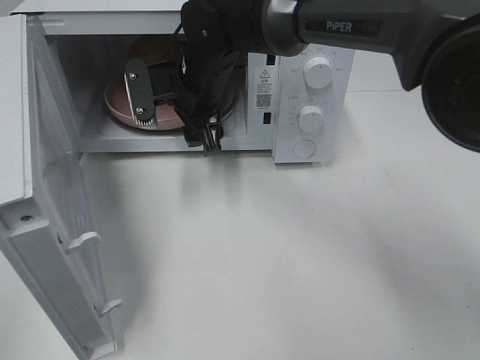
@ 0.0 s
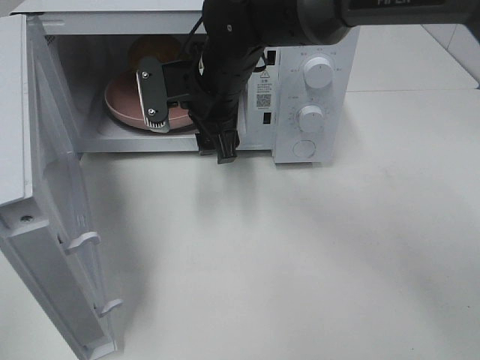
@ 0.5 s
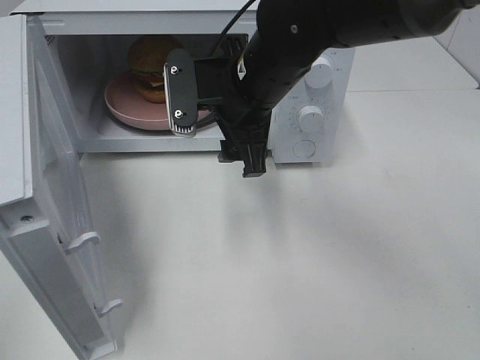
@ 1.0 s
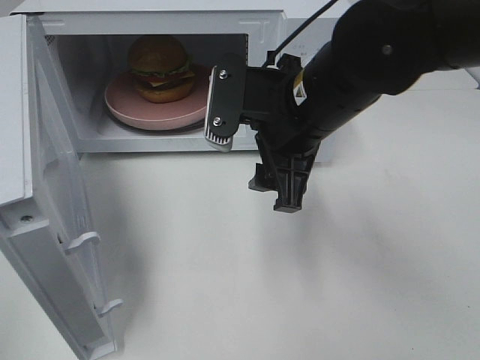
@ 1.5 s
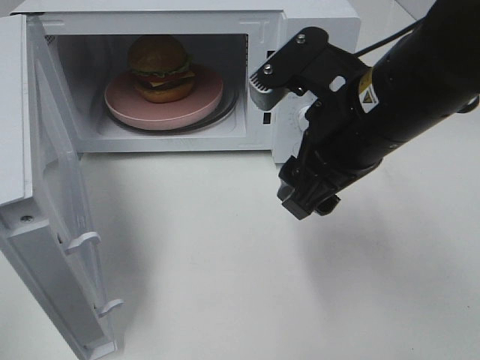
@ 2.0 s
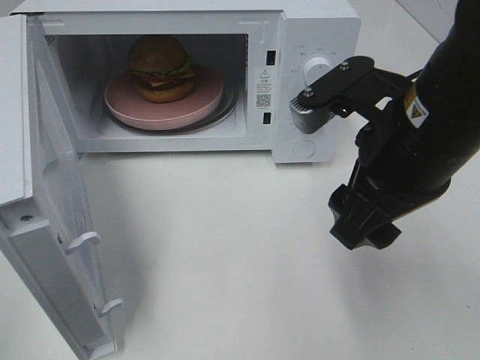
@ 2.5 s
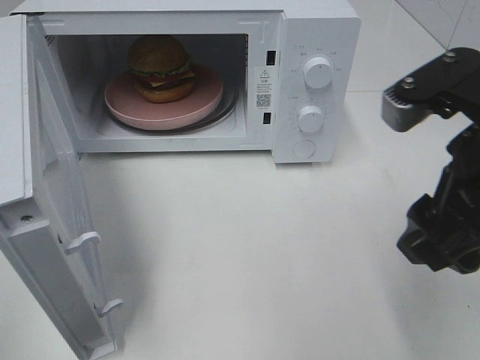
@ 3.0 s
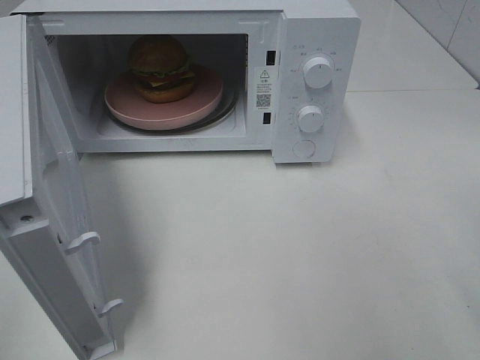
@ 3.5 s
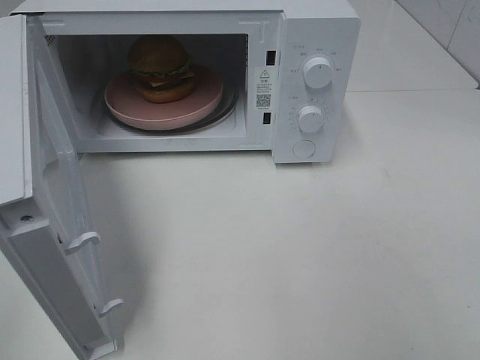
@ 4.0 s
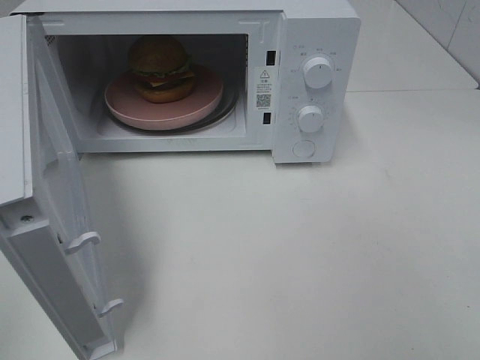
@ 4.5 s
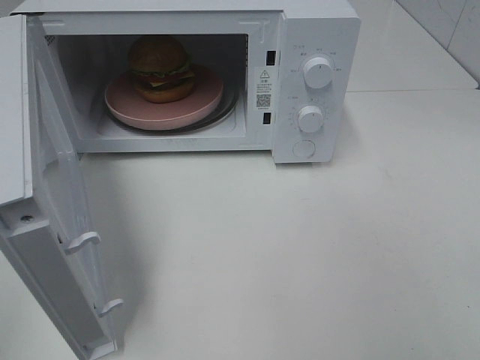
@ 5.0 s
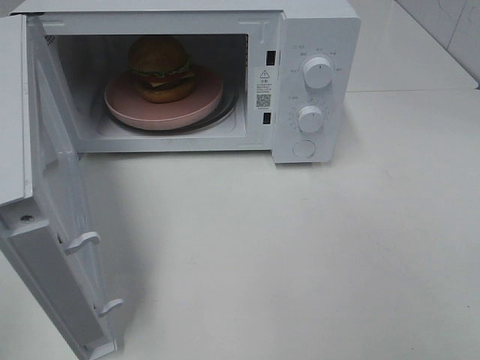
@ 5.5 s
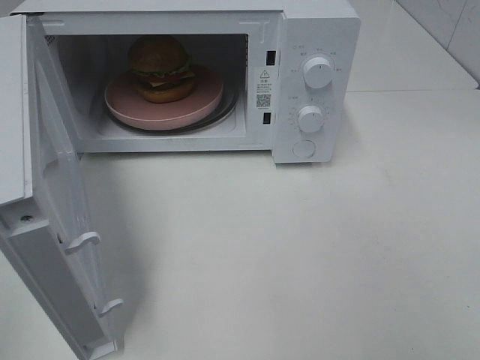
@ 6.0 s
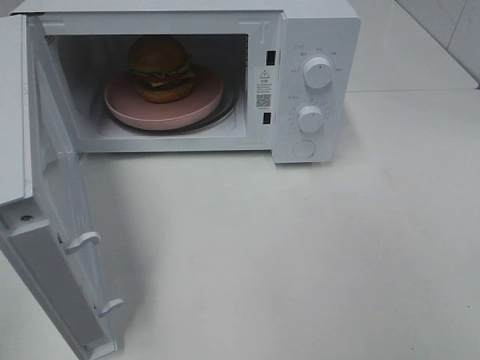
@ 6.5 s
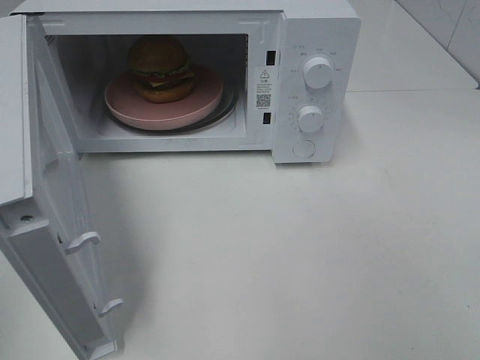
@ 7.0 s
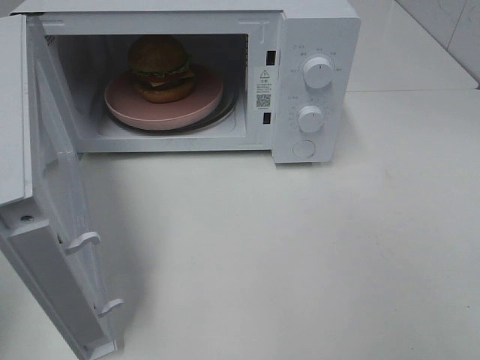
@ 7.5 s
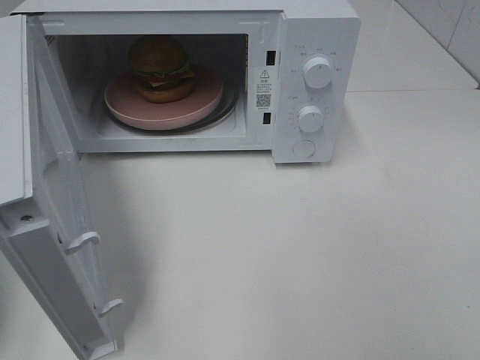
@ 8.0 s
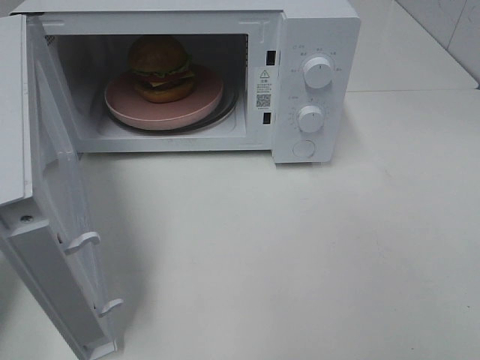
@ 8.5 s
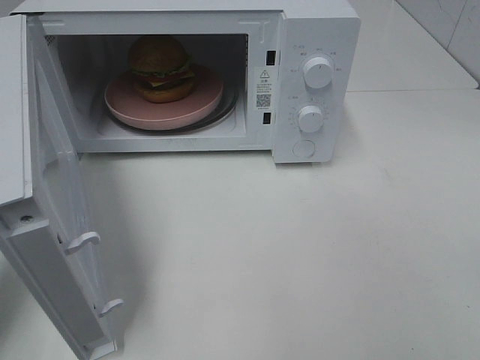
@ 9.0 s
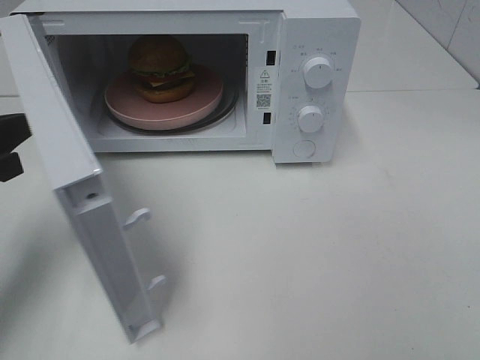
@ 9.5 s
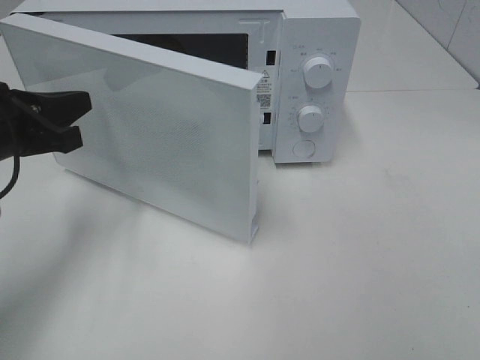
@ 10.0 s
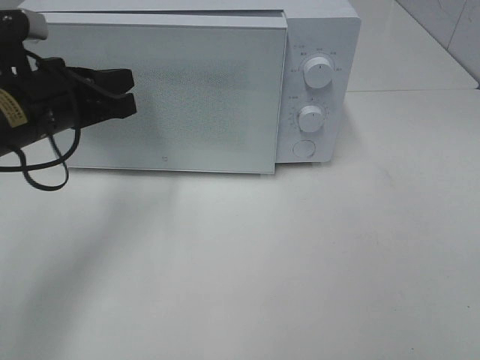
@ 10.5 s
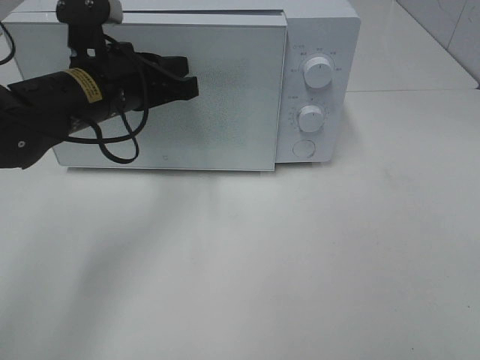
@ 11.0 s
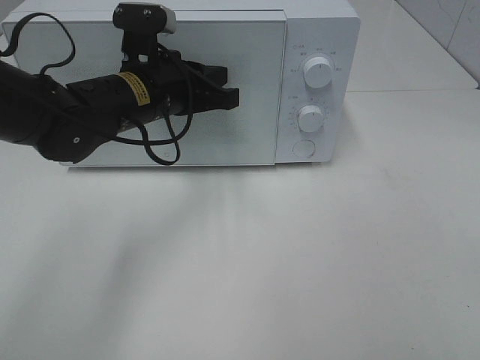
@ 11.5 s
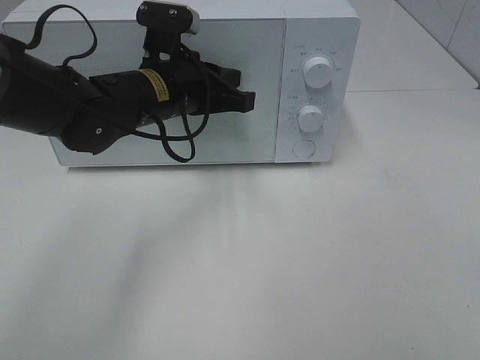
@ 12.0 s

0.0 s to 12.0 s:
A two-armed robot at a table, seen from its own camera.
Task of the whole recording: Heat the burger.
0.0 to 2.0 s: The right gripper shifts about 25 cm backward and to the right.
2.0 to 4.0 s: The right gripper travels backward and to the right by roughly 25 cm.
8.0 to 10.0 s: The left gripper heads forward and to the right, covering approximately 15 cm.
10.0 to 12.0 s: The left gripper is displaced to the right and forward by approximately 20 cm.

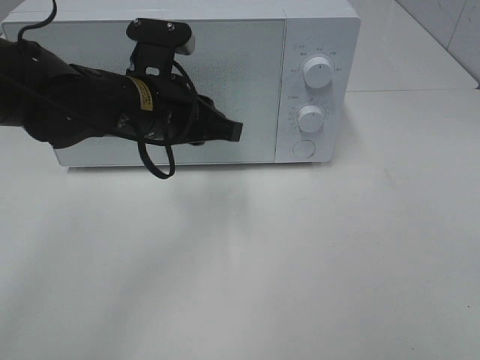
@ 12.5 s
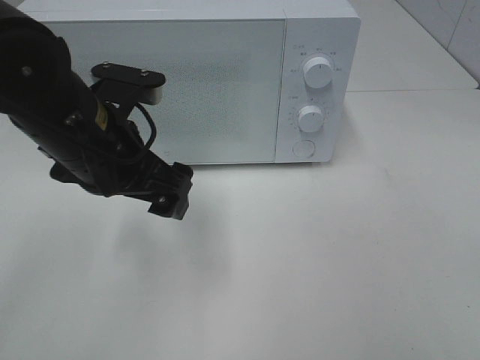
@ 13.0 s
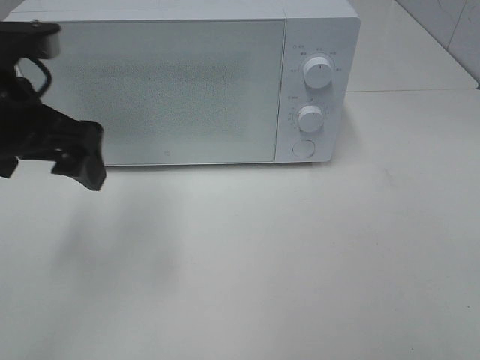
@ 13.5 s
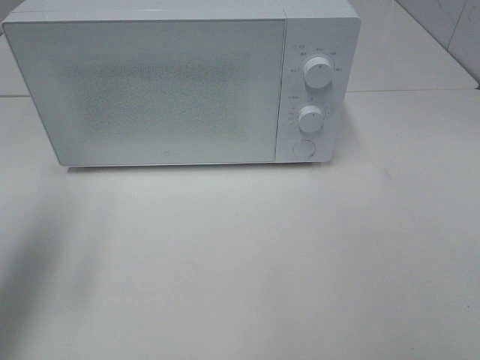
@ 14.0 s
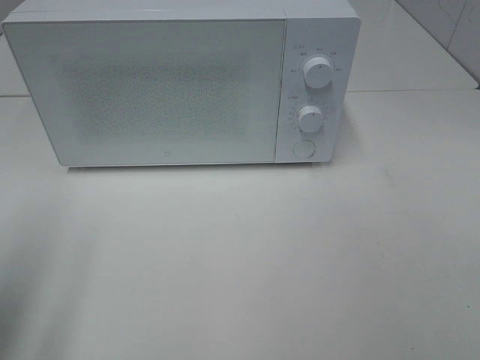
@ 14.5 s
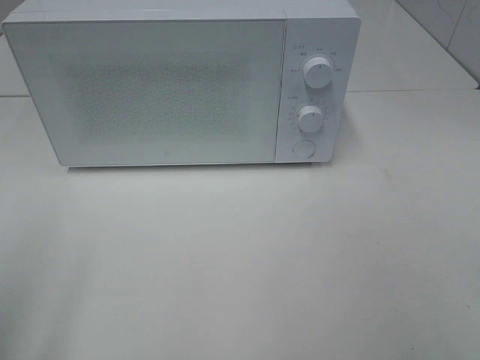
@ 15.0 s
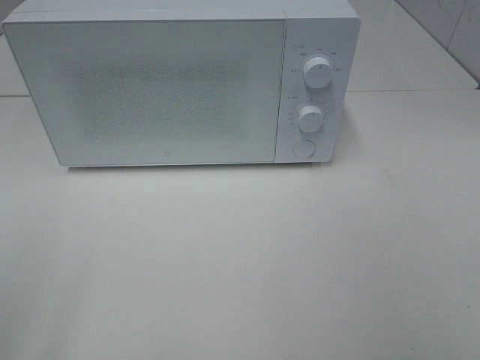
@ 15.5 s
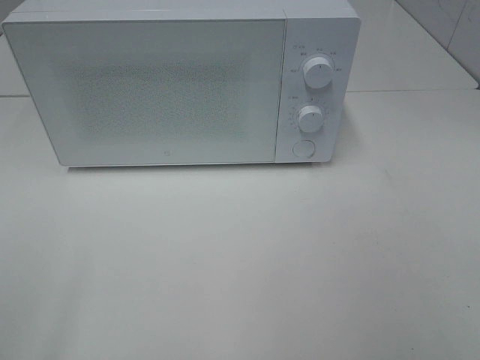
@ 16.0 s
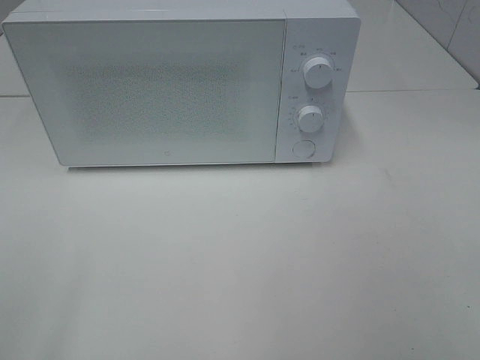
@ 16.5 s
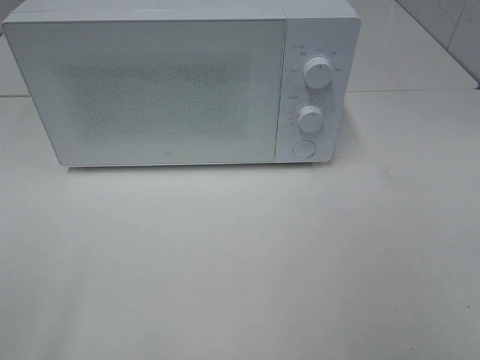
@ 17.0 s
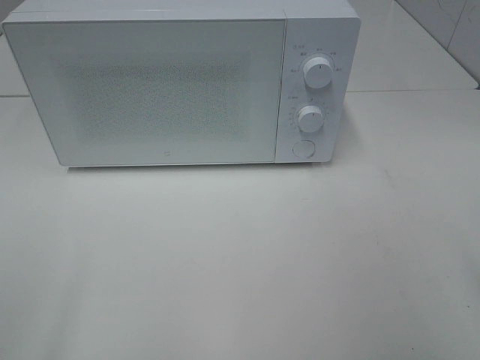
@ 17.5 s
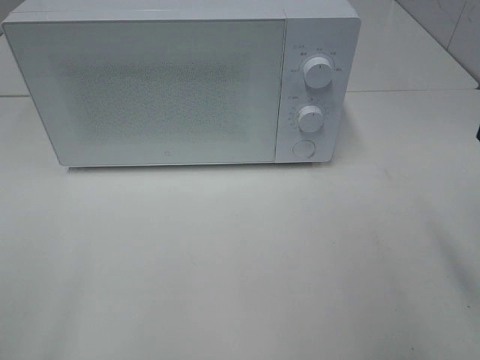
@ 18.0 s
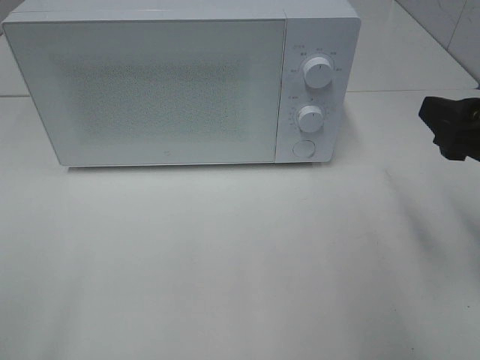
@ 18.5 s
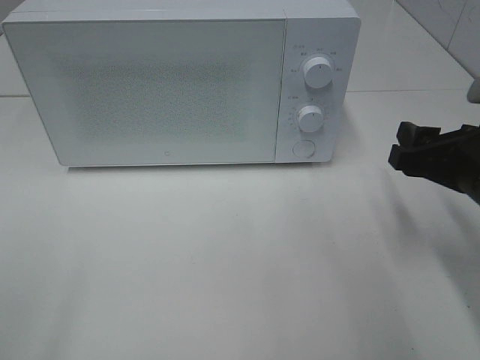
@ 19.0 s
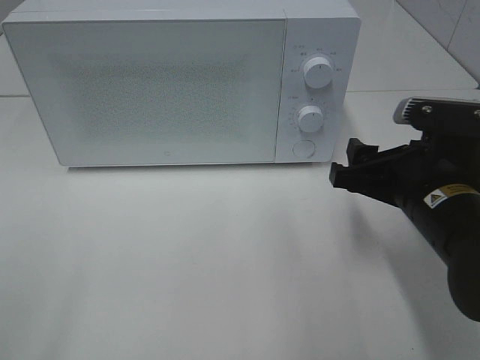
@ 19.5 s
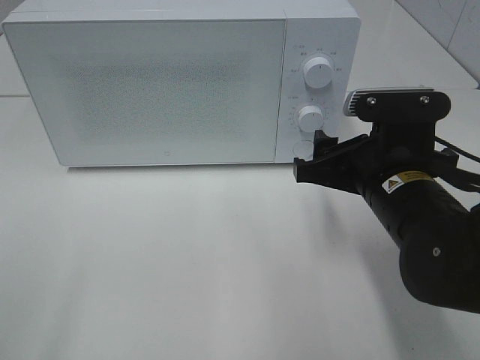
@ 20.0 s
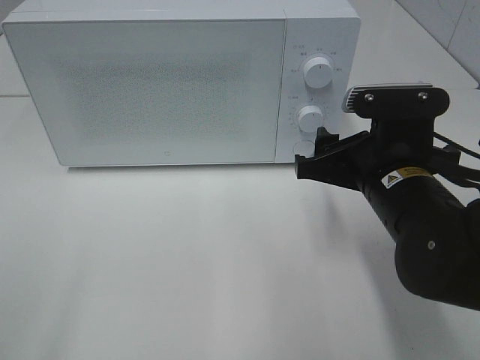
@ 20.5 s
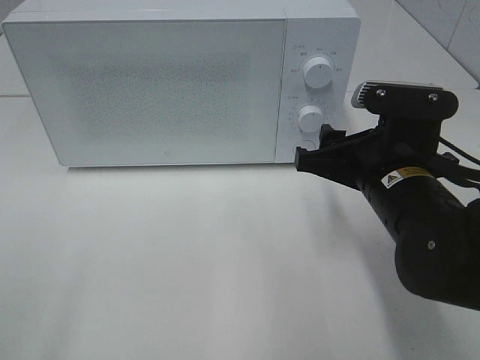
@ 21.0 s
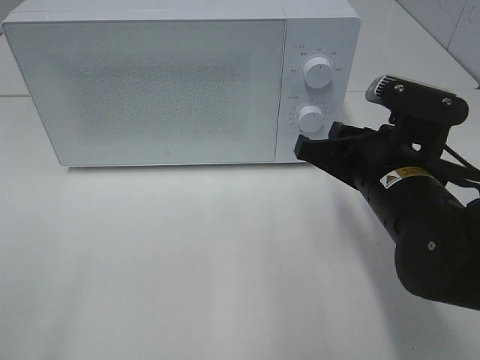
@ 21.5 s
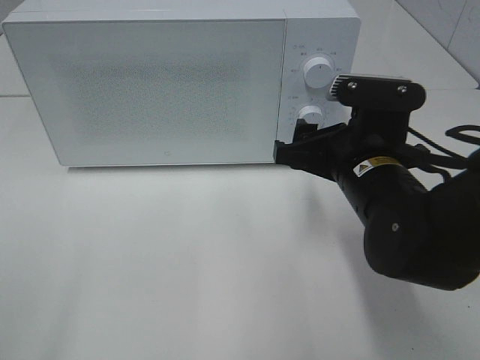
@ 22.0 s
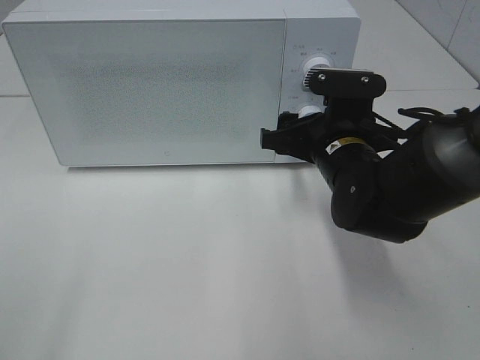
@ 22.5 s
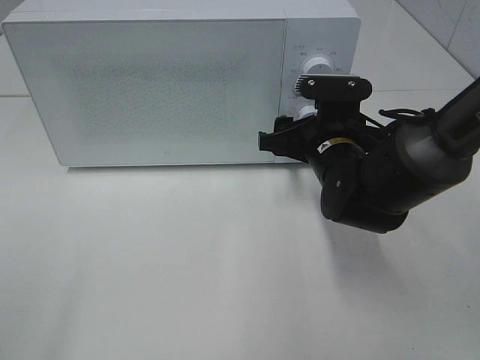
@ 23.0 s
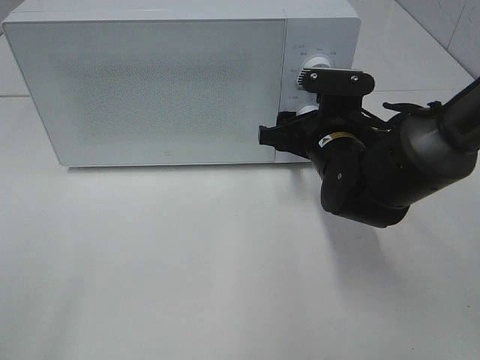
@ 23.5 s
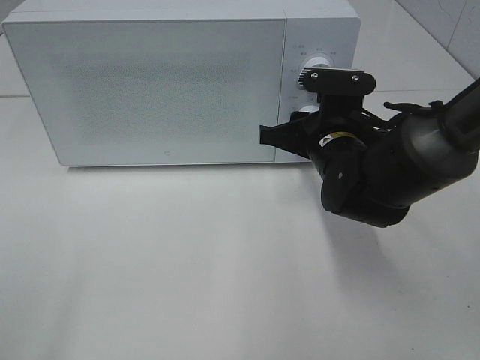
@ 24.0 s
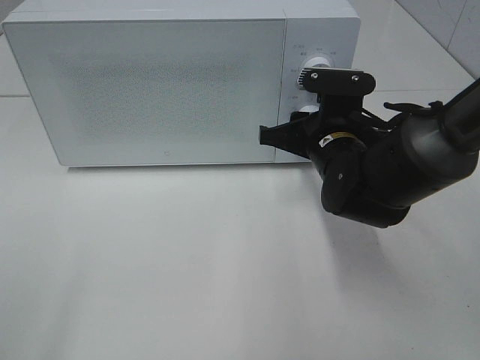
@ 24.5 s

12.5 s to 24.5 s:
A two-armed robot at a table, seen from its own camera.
Task of the whole recording: Heat the burger.
12.5 to 14.5 s: The left gripper goes some 30 cm to the left and backward, and opens its fingers.
14.5 to 16.5 s: The left gripper moves backward, roughly 15 cm.
16.5 to 18.5 s: The right gripper is displaced forward by about 20 cm.
18.5 to 20.5 s: The right gripper shifts about 10 cm to the left and downward.
20.5 to 22.5 s: The right gripper heads forward, covering approximately 5 cm.
22.5 to 24.5 s: The right gripper closes up.

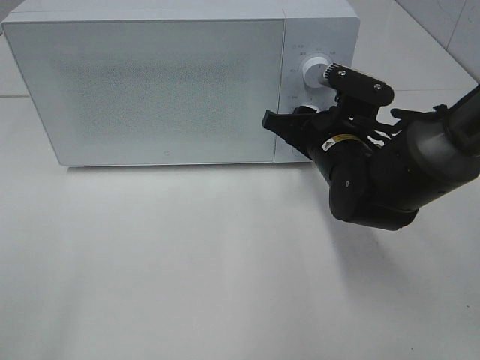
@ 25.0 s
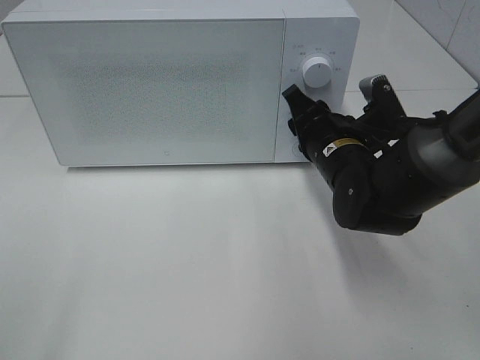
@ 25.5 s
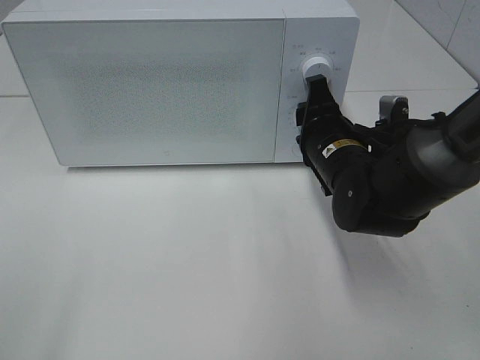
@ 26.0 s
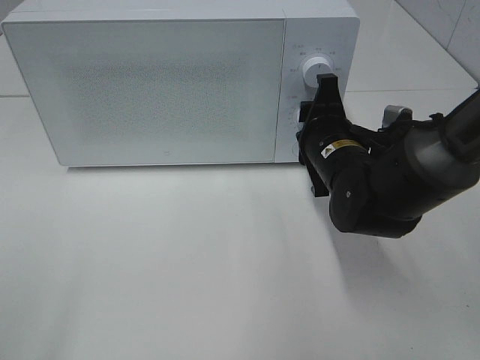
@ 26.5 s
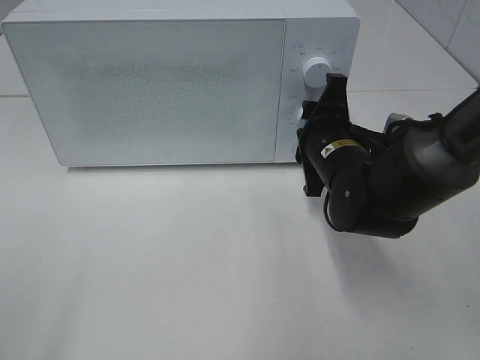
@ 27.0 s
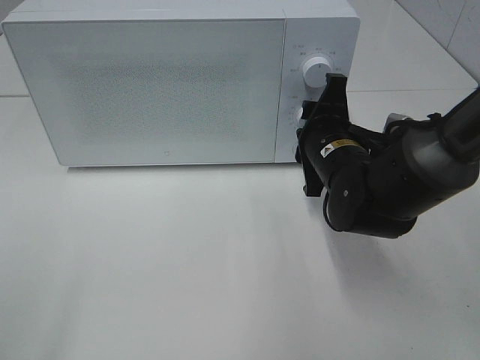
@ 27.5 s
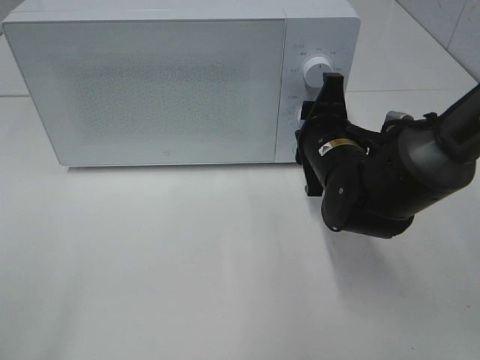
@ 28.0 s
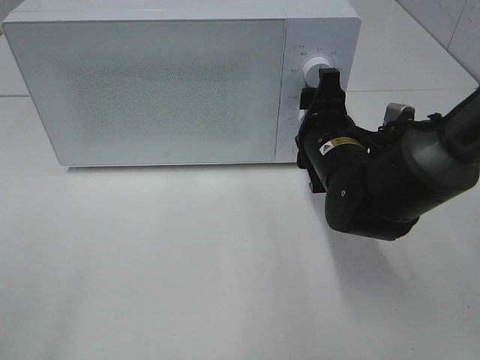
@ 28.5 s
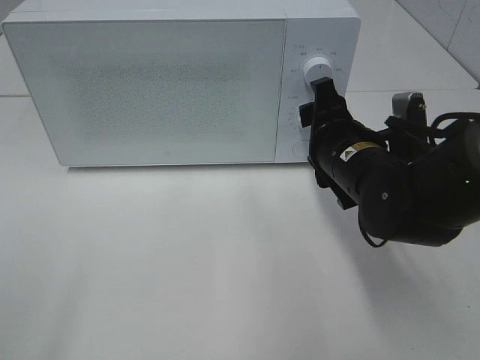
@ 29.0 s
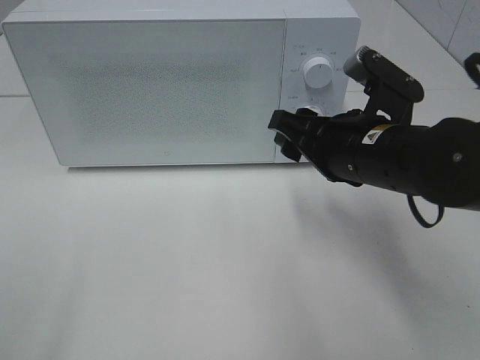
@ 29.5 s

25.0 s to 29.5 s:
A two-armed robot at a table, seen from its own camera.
Task of the whole recording: Heat the burger.
Step, 25.0 to 28.5 s: Right hand: twist timer button.
27.0 to 29.5 s: The right gripper travels backward and upward by approximately 10 cm.
